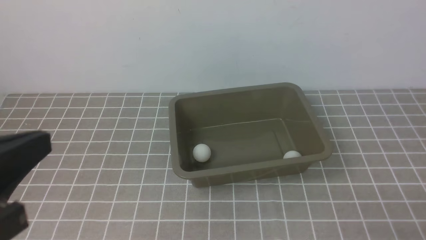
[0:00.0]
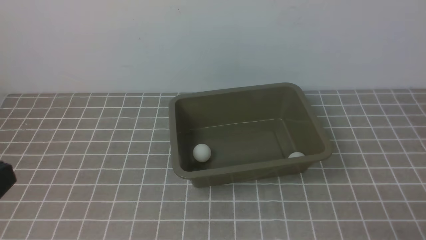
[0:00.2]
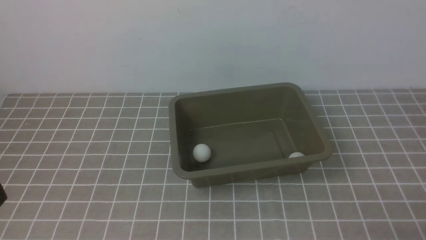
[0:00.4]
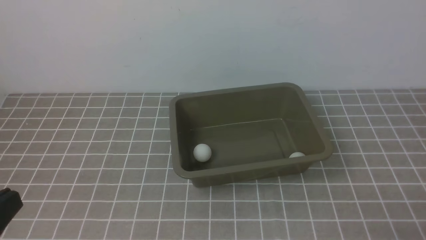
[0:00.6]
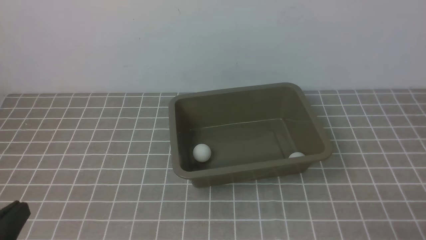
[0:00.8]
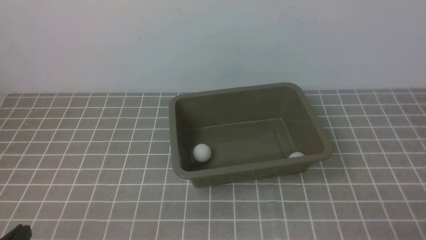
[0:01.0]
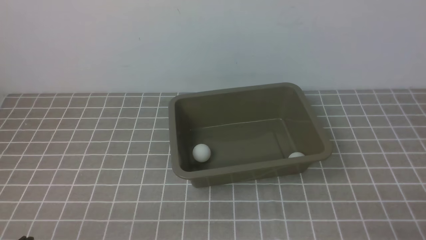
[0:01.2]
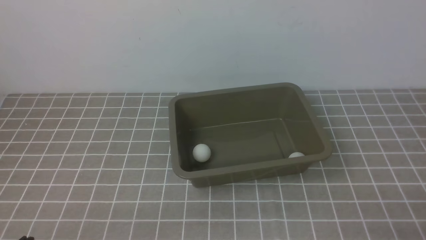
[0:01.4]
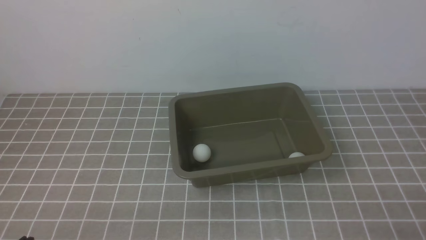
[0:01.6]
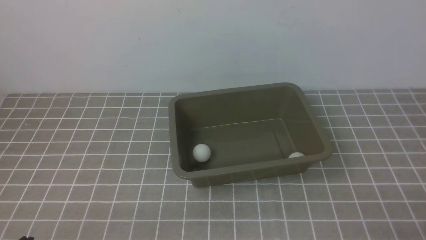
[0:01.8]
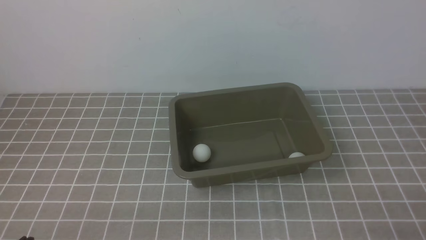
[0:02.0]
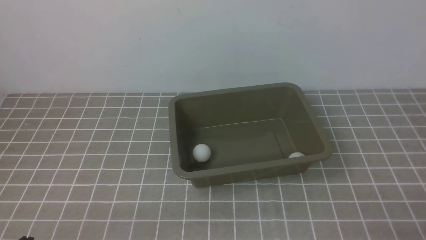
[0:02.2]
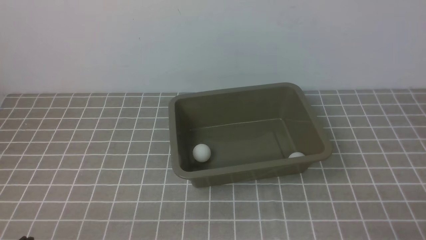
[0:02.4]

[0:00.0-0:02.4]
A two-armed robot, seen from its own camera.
0:00.0 to 0:01.2: The left gripper travels downward by some 20 cm.
0:01.2 to 0:02.4: Both grippers stay about where they are.
